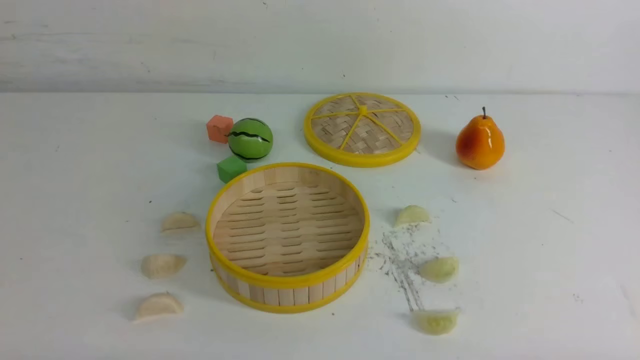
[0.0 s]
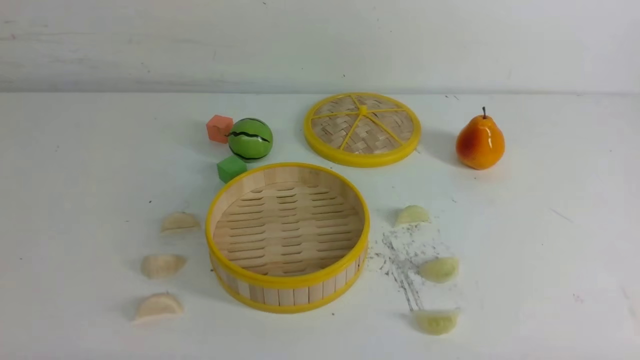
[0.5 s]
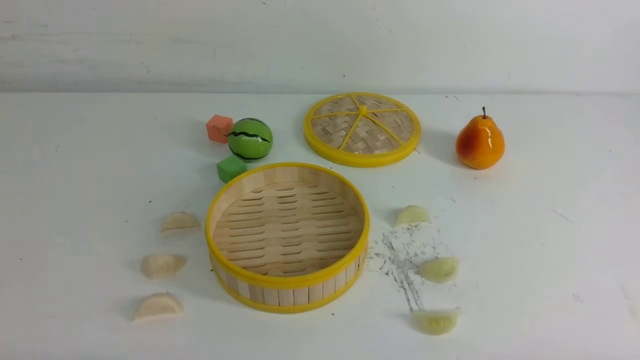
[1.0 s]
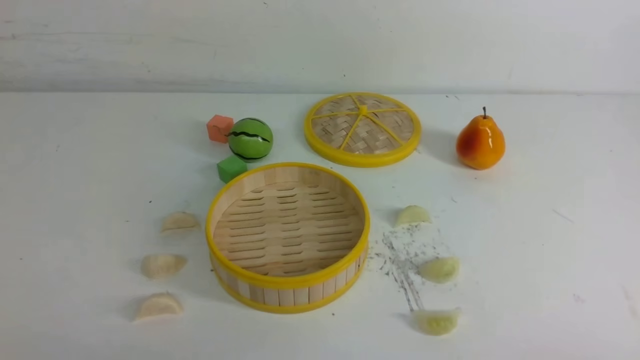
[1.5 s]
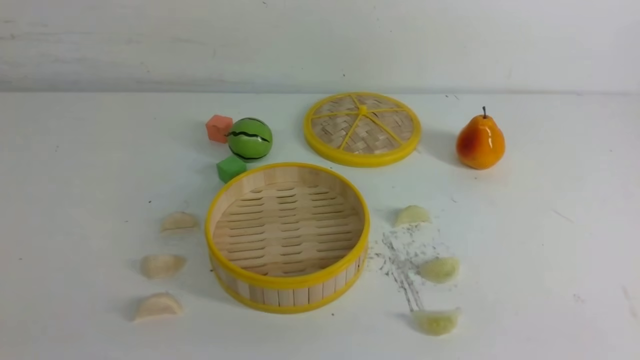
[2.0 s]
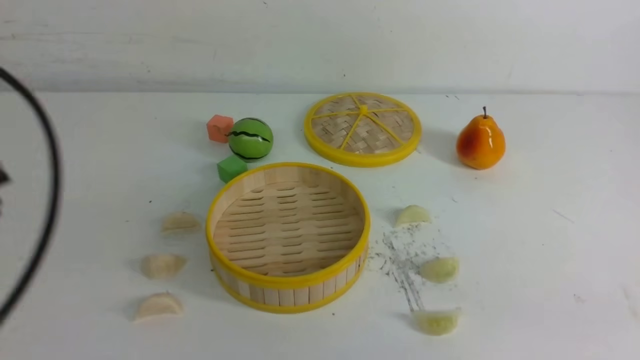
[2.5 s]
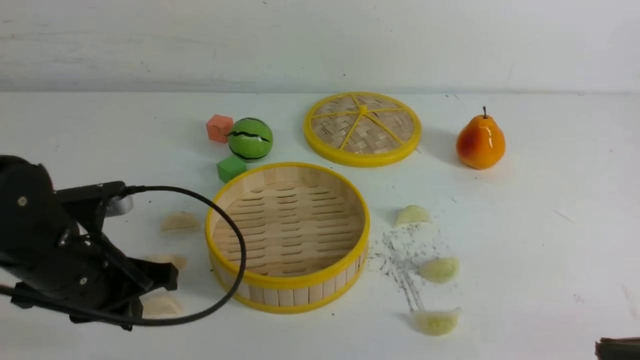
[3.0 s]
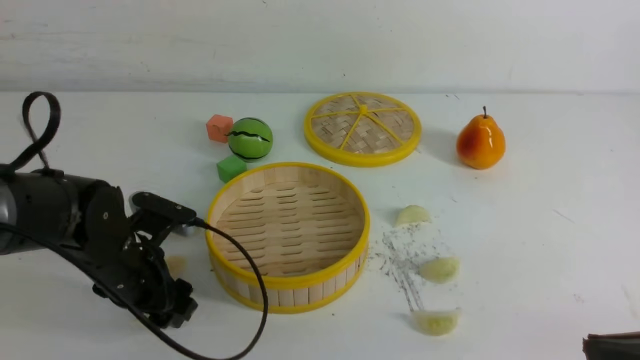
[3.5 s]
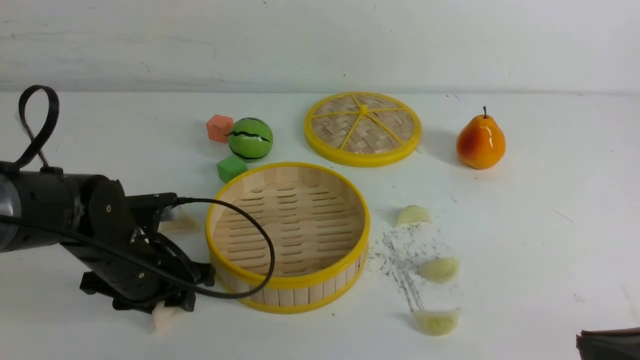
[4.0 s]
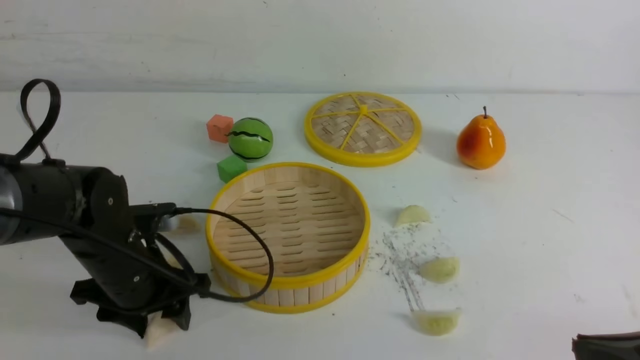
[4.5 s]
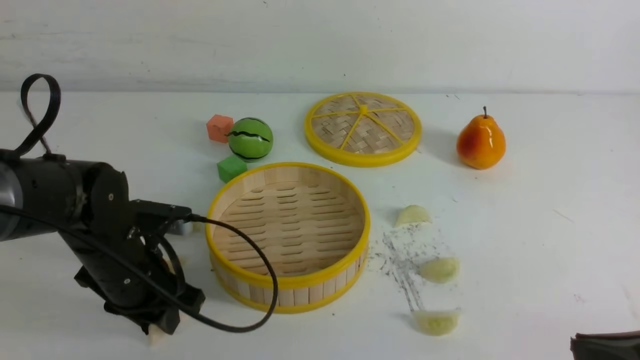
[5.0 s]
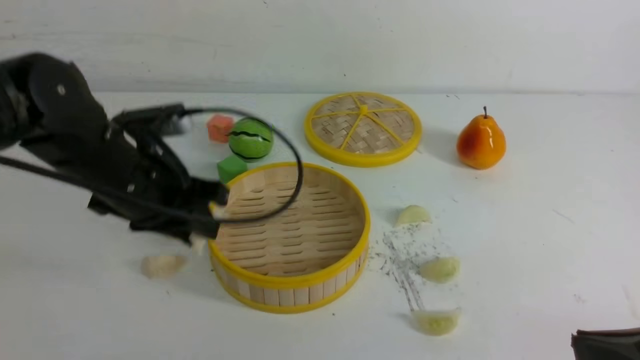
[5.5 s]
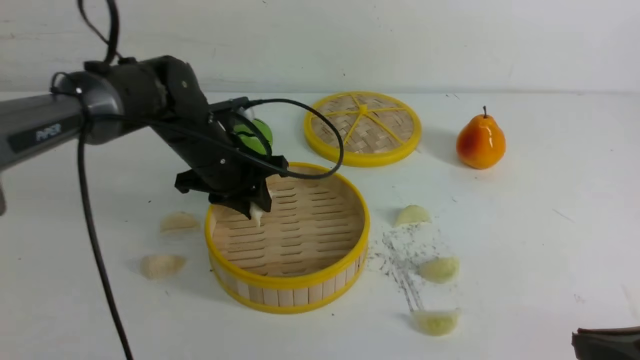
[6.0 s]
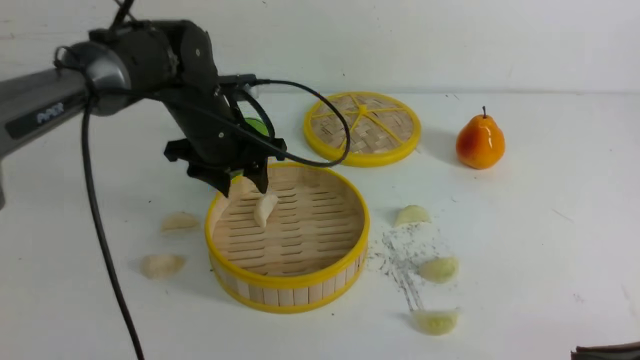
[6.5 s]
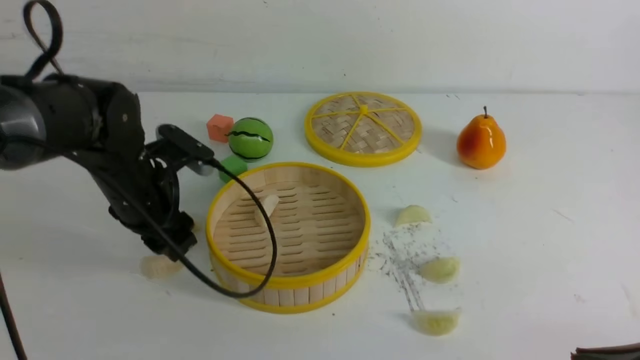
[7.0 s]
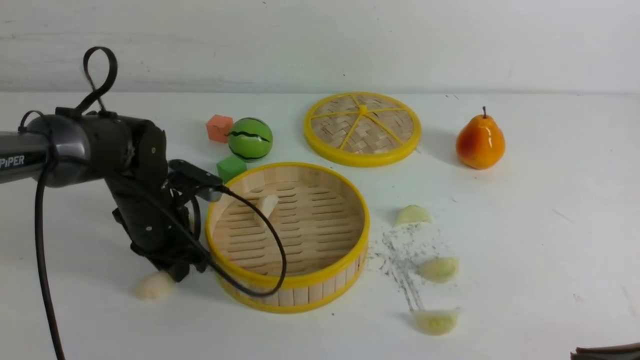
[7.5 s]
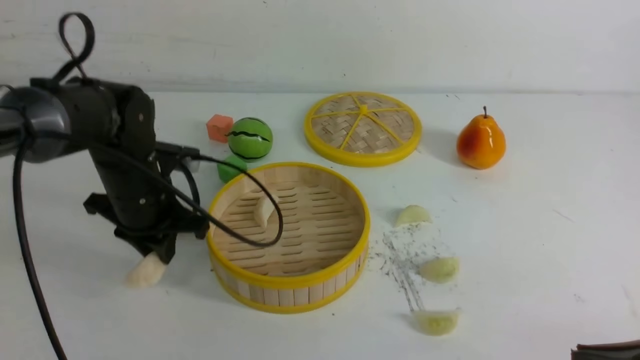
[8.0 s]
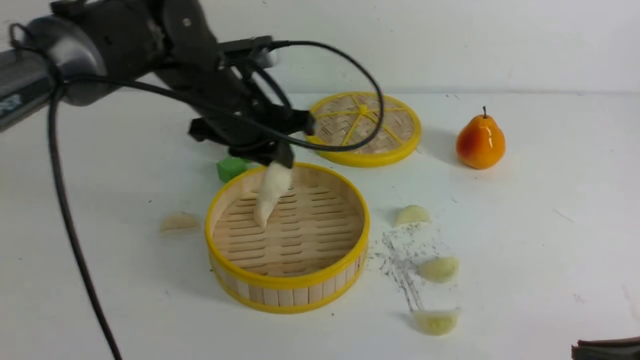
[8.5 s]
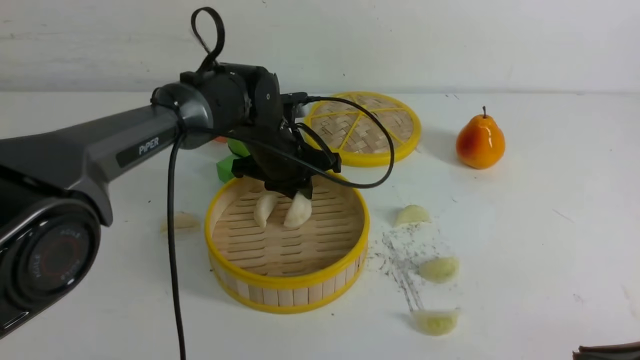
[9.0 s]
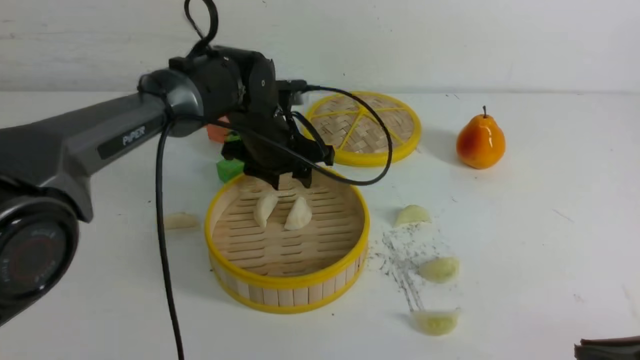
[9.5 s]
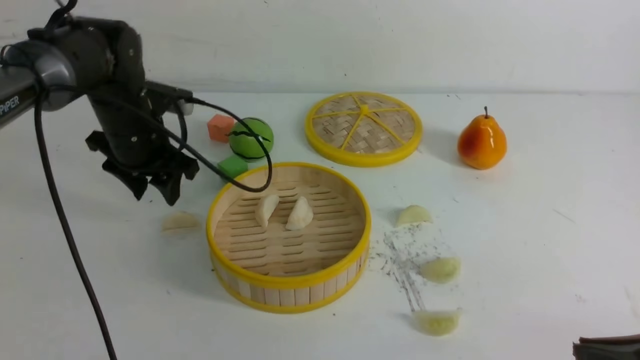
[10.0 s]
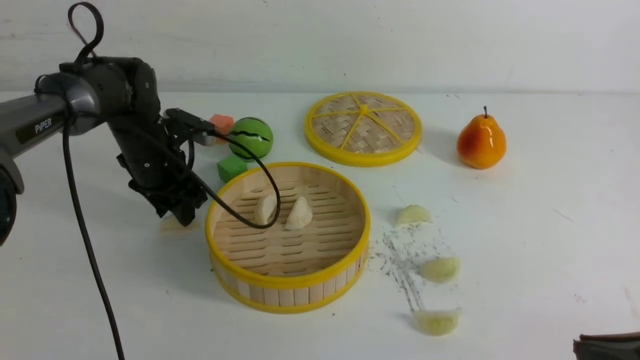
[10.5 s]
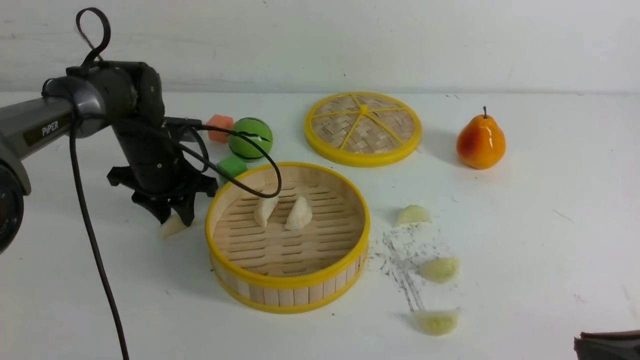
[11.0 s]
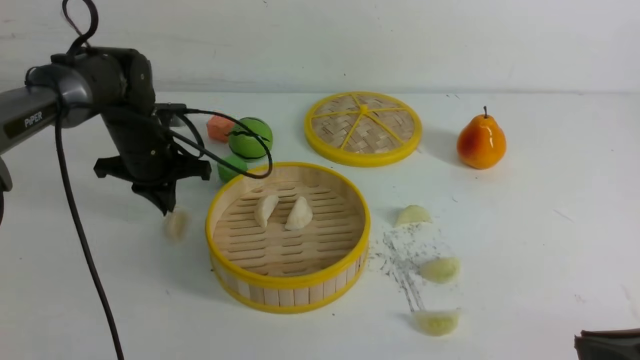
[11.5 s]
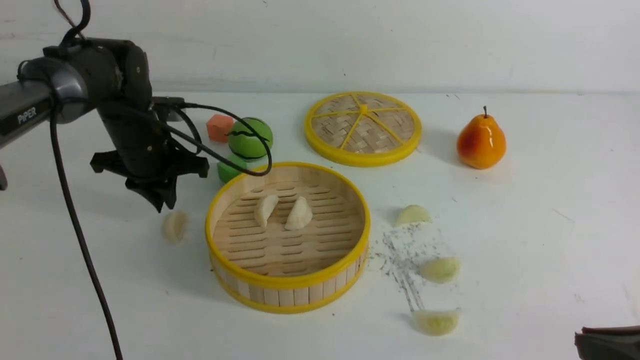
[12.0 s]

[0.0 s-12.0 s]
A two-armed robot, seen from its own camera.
Task of the whole recording: put the dumplings into the steamer on the white table.
Step, 0.0 to 5.0 s: use the left arm to grab a dumpling.
Step, 5.5 to 6.0 s: use the left arm to put the dumpling into the steamer.
Step, 6.5 to 7.5 s: use the left arm to grab a dumpling.
Step, 8.5 to 9.0 s: use the left arm to put the dumpling into the steamer.
2.0 to 4.0 s: The left gripper moves forward and downward, some 30 cm, and opens up; the right gripper is displaced forward by about 10 cm.
4.0 to 6.0 s: The left gripper shifts roughly 15 cm forward, to the right and upward.
6.0 to 8.0 s: The left gripper goes up and down, some 10 cm each way, reversing 2 times, and opens, then closes once more.
8.0 to 10.0 s: The left gripper heads forward, covering some 5 cm, moves about 15 cm to the right and comes back, and opens its fingers.
10.0 to 12.0 s: The left gripper closes its fingers.

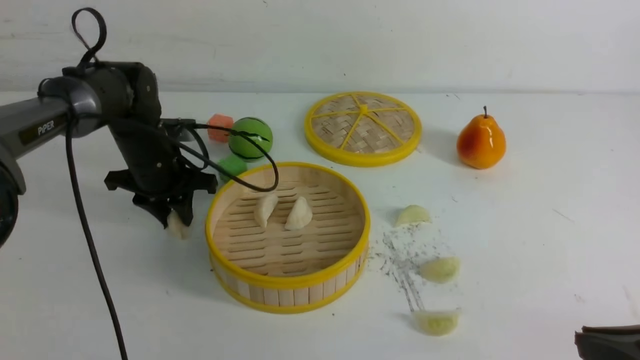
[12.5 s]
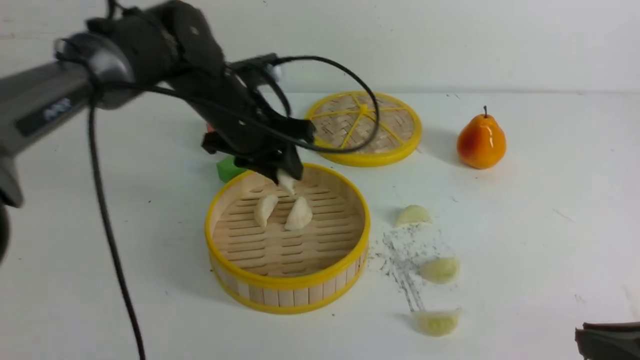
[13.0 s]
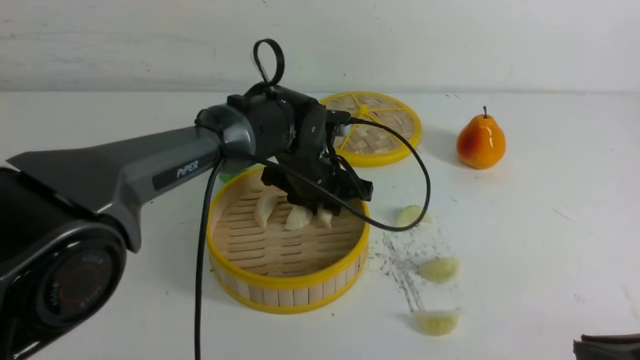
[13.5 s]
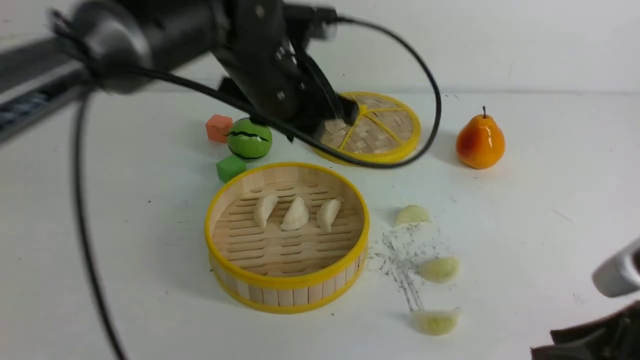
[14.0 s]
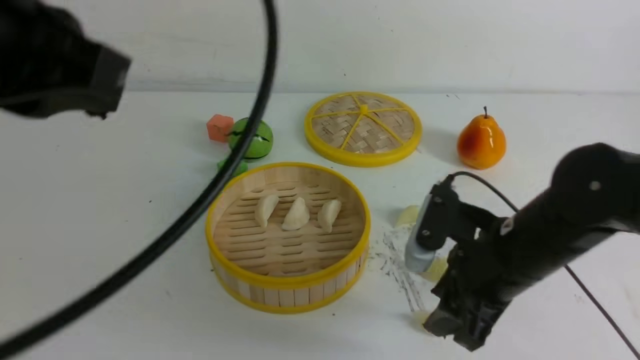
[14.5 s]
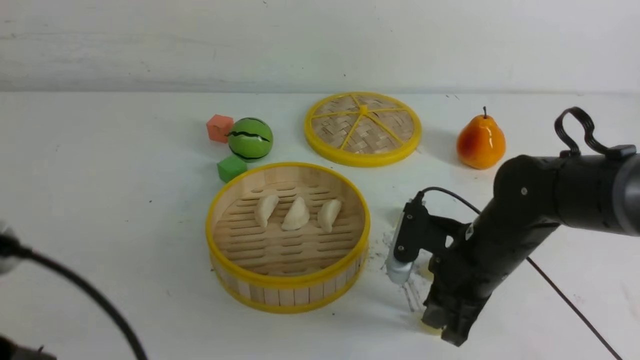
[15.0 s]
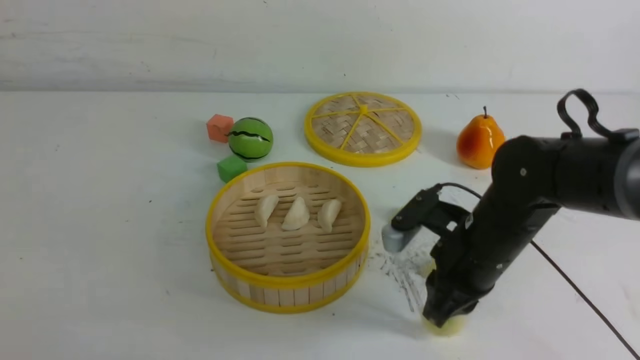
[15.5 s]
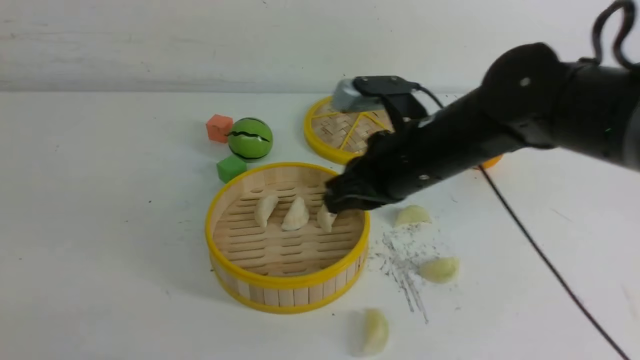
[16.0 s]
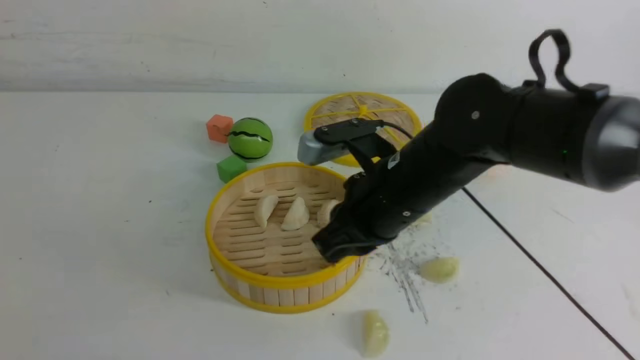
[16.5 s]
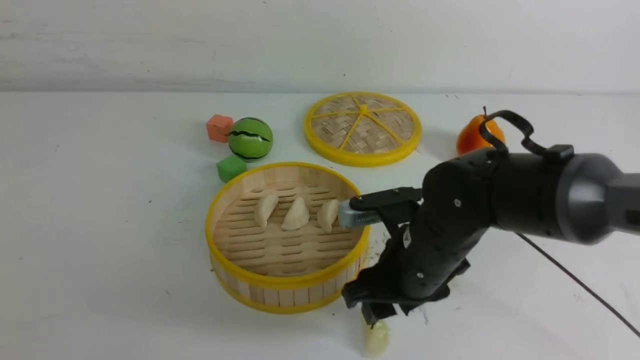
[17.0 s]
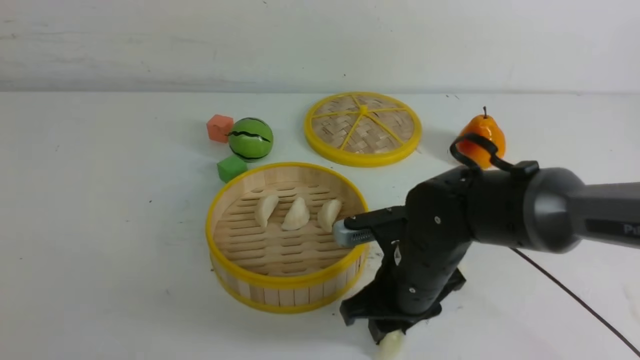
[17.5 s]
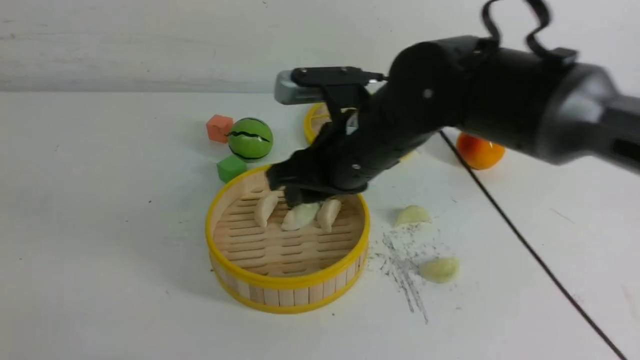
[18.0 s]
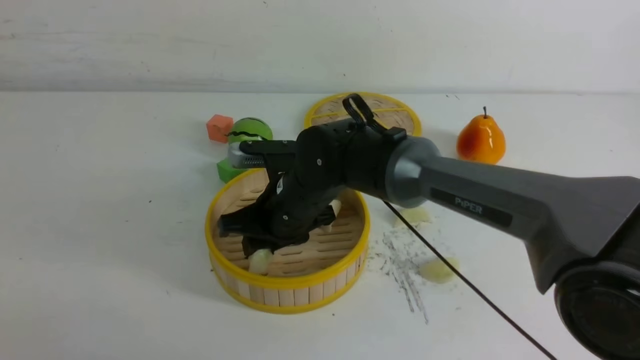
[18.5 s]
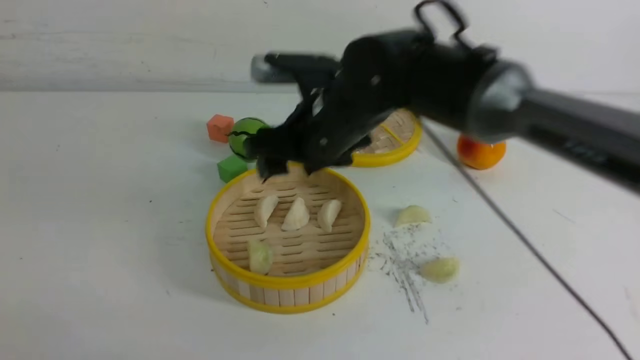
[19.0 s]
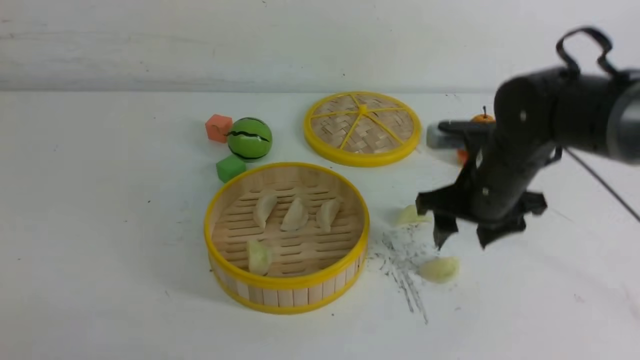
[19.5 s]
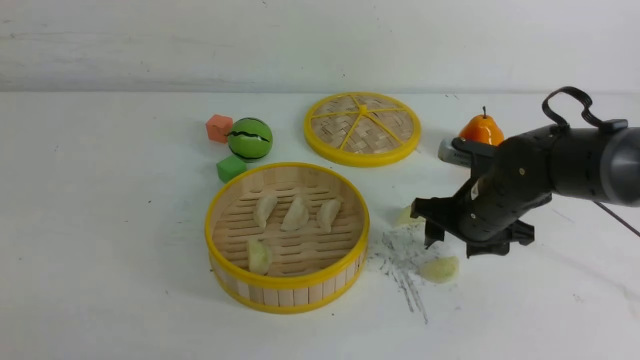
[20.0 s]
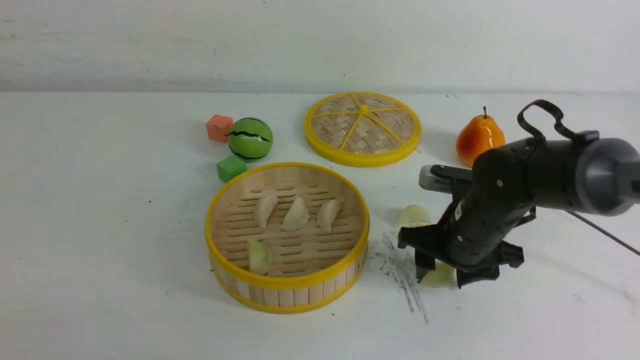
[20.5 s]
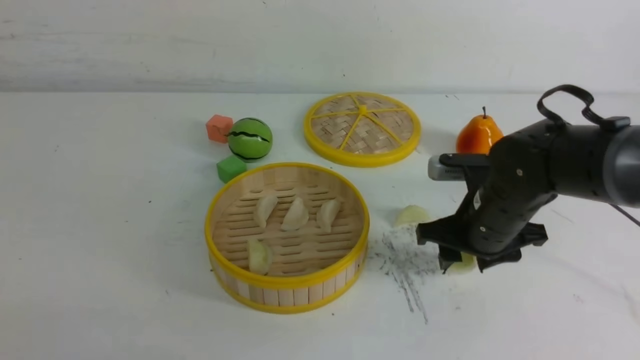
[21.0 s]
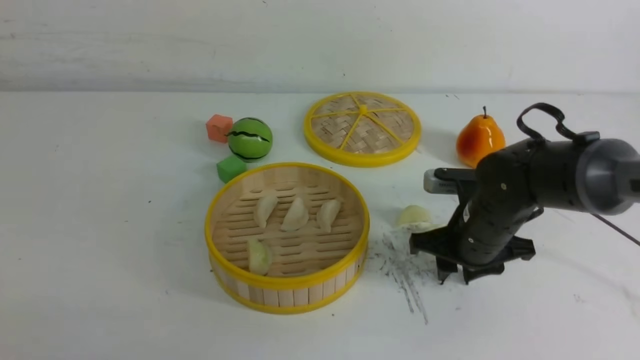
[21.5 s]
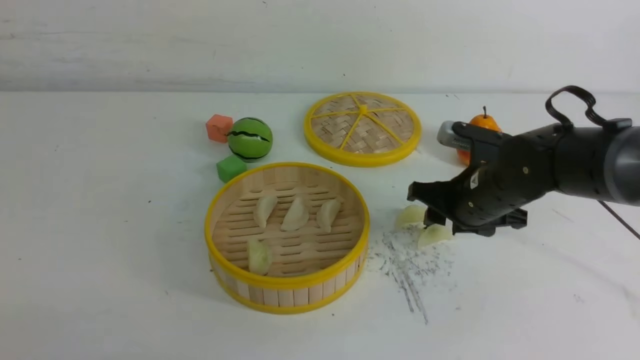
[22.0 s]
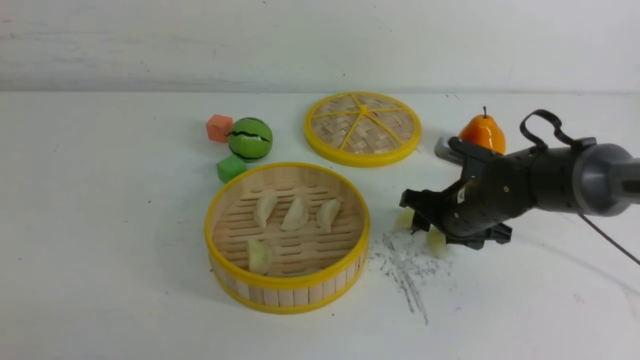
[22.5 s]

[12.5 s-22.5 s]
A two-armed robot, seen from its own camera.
Task of the whole recording: put the dumplings into the steamer on the white table.
Step, 12.5 to 13.5 s: use the left arm to put the dumpling into the steamer.
Step, 14.0 to 17.5 s: use the right arm to grab a dumpling.
Step, 18.0 to 18.5 s: use the right arm to put the dumpling into the steamer.
12.5 to 14.5 s: The left gripper travels backward and upward by about 40 cm, and closes up, while the right gripper shifts roughly 20 cm forward and to the left, and opens.
14.5 to 16.5 s: The left gripper goes roughly 25 cm downward, backward and to the left; the right gripper travels to the left by about 10 cm, and closes up.
16.5 to 18.5 s: The right gripper is displaced to the left, forward and downward by some 15 cm, and opens its fingers.
18.5 to 20.5 s: The right gripper moves to the right, some 20 cm.
